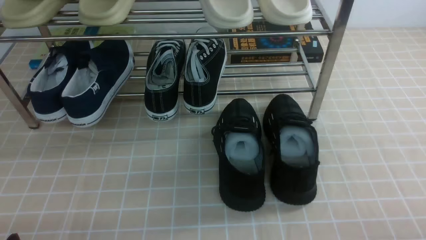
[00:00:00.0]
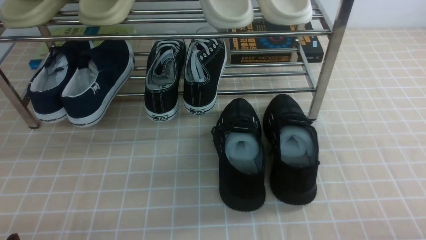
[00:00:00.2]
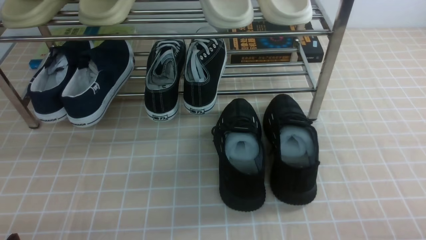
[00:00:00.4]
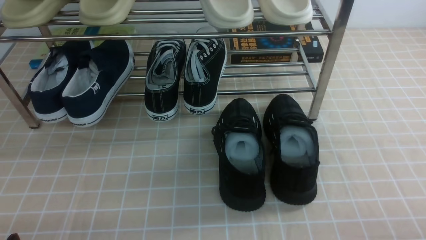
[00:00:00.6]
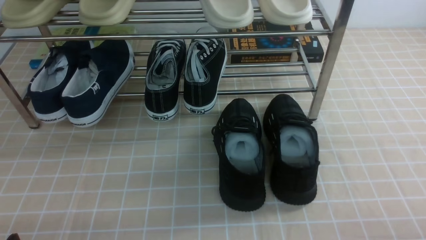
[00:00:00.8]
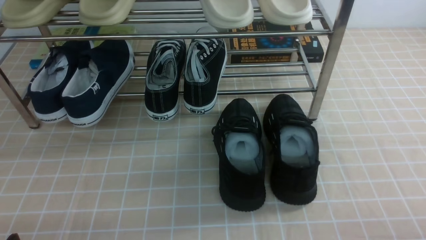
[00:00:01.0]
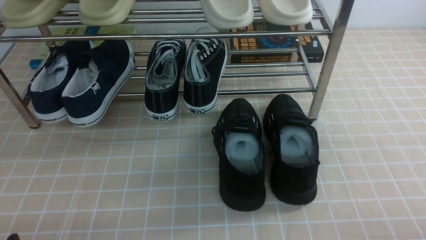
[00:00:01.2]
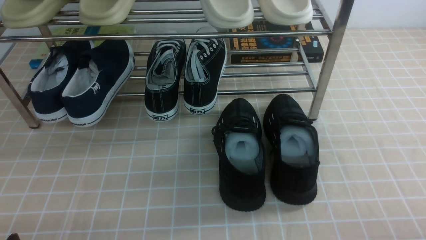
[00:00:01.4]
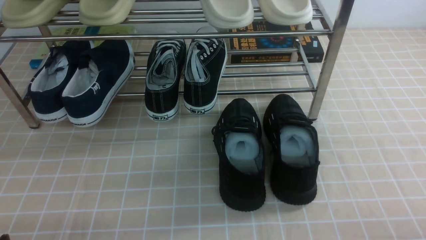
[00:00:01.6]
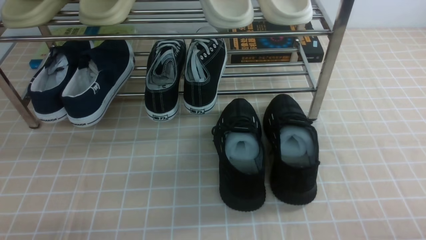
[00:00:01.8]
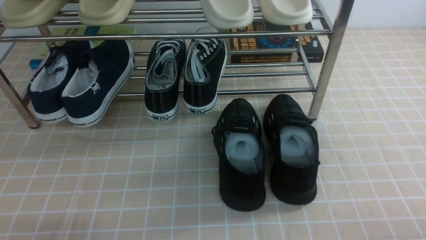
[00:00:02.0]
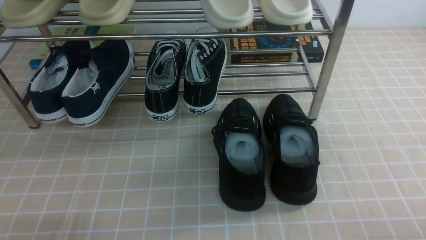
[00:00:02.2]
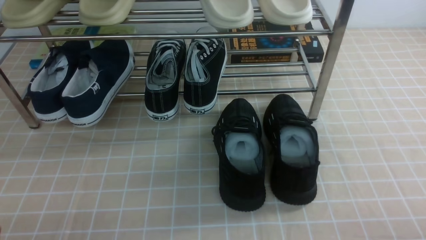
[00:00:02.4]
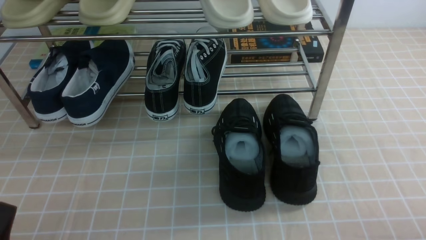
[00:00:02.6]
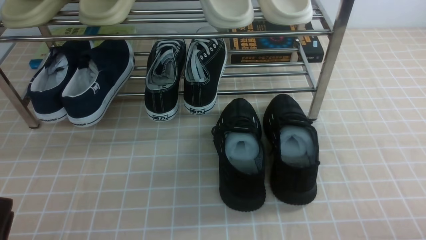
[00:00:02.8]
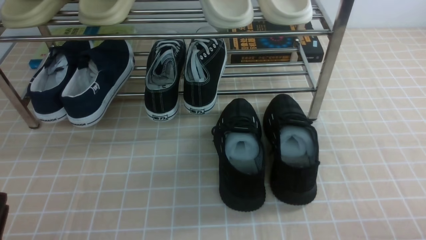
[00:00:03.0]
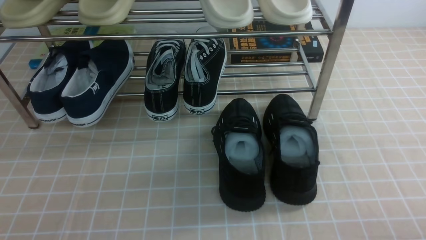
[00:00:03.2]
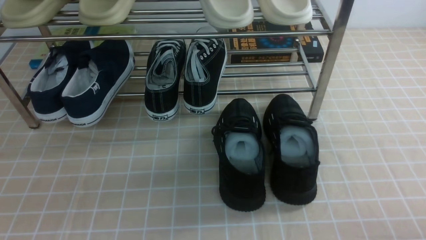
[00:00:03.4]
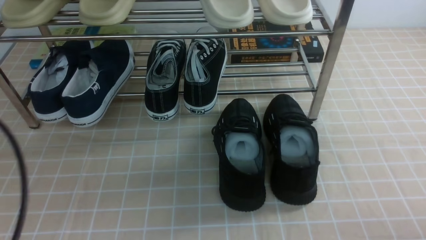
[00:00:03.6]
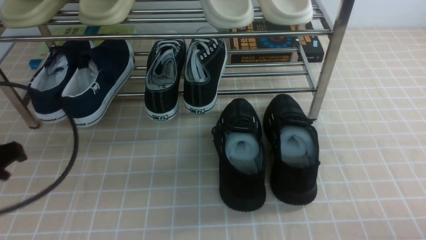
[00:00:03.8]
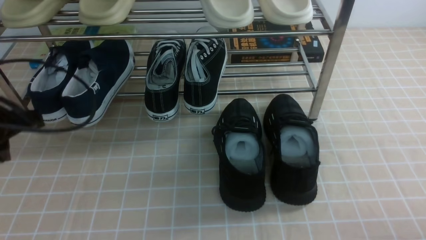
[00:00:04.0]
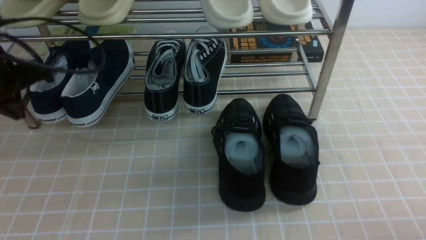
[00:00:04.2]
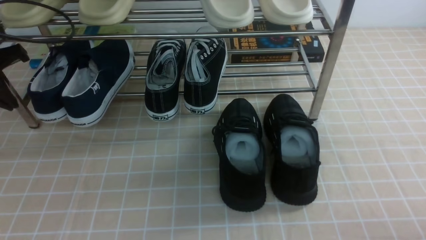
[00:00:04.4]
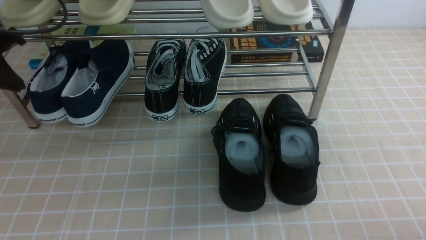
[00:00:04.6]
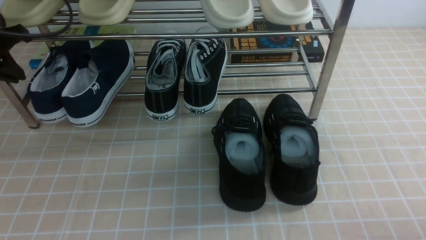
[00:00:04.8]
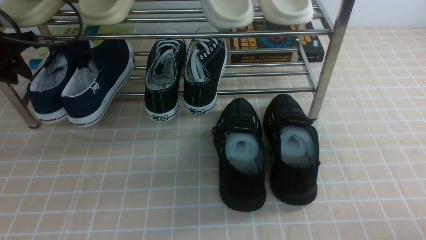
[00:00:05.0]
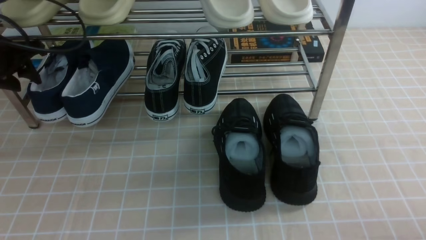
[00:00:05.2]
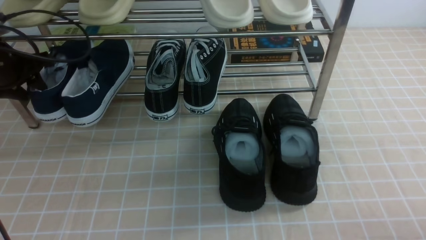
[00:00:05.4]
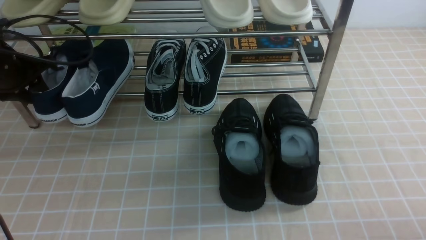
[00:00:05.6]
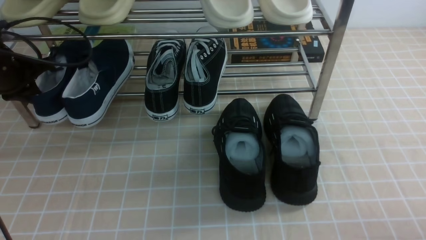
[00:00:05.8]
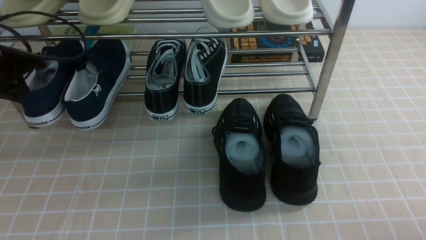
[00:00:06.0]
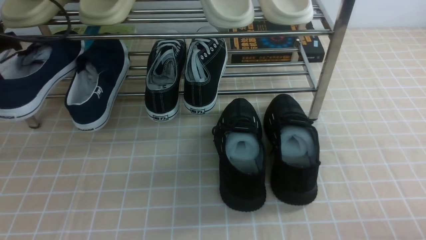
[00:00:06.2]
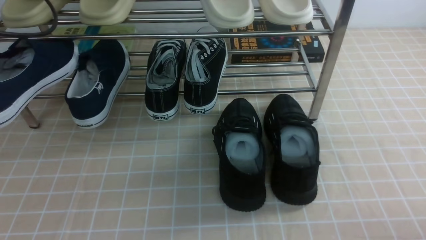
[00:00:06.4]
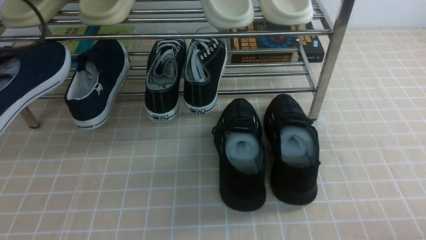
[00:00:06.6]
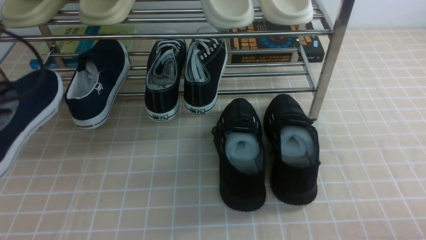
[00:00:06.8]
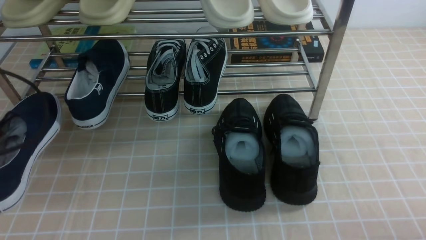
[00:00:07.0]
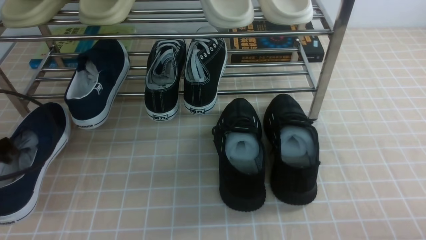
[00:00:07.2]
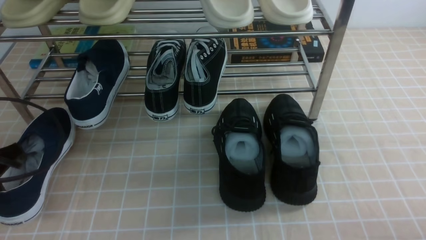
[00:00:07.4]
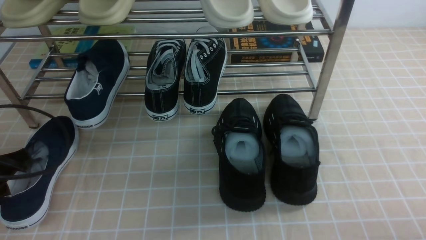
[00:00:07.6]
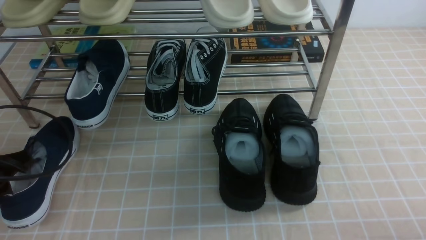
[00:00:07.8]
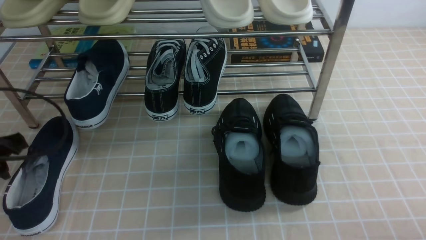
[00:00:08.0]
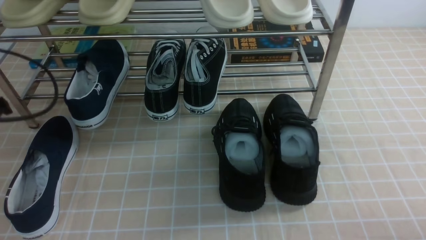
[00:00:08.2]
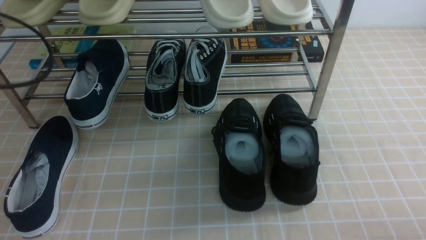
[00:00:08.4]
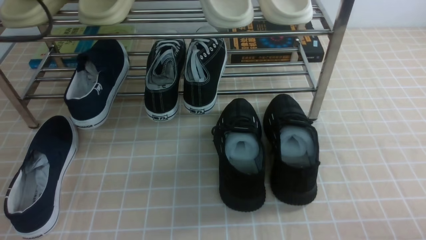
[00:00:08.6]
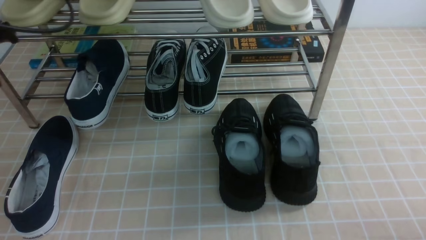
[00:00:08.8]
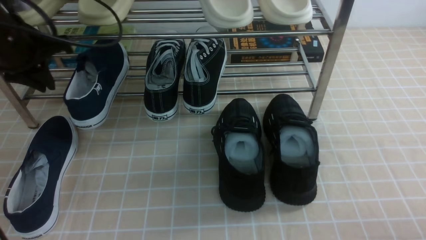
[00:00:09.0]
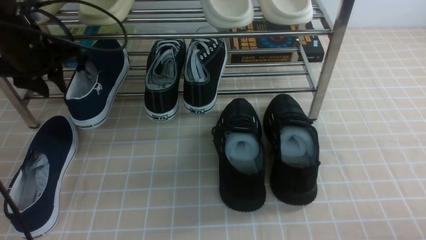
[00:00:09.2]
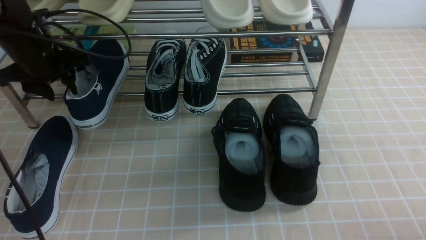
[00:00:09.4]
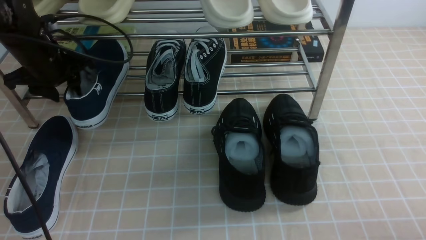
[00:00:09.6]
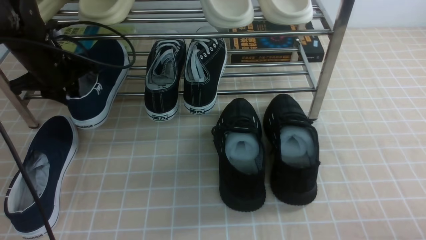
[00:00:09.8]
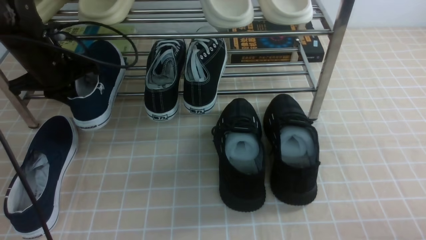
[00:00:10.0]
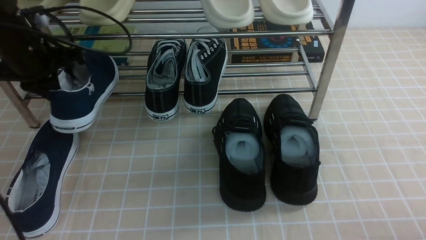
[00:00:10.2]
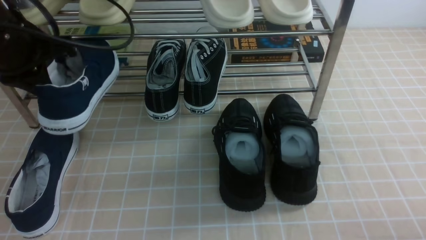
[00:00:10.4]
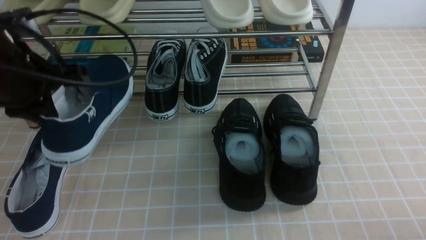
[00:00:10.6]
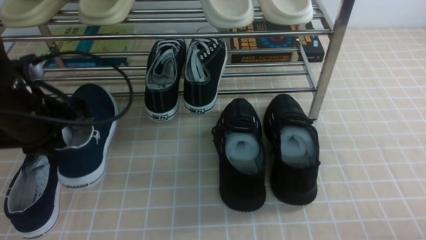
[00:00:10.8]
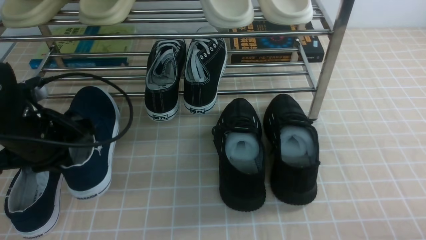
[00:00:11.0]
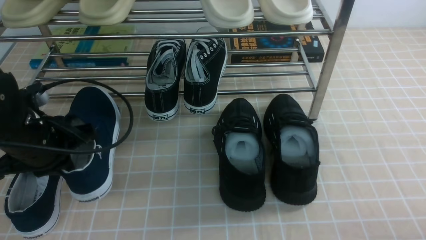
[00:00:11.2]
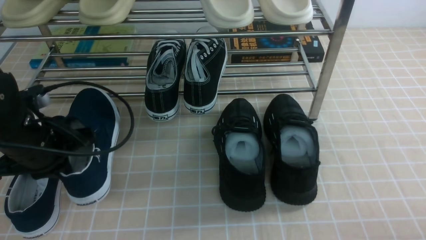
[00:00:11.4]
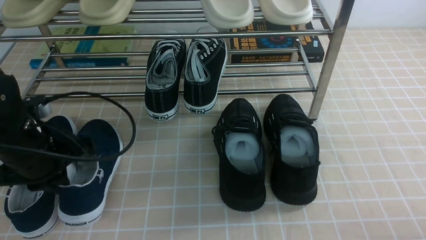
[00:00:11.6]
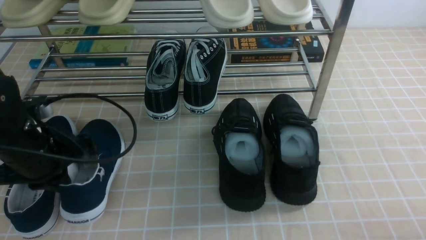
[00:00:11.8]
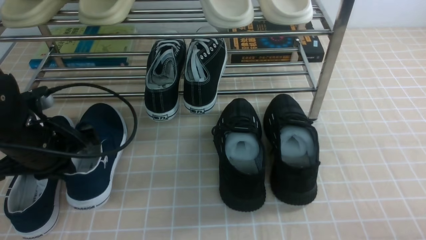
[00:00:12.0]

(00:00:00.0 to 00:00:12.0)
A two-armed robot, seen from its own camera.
Step, 00:00:00.0 - 00:00:05.6: use the left arm to clamp a shoe on the left side of the shoe rack.
Step, 00:00:05.8 - 00:00:08.0: Use your left arm to remove the clamped shoe from the shoe rack and put it down.
Step, 00:00:08.2 - 00:00:09.8: use the left arm to clamp a shoe on the left side of the shoe rack.
00:00:03.0 - 00:00:04.4: The left gripper goes approximately 30 cm forward and upward, and closes its fingers.
00:00:04.4 - 00:00:06.0: The left gripper opens, then closes once more.
00:00:06.0 - 00:00:07.6: The left gripper goes roughly 15 cm backward and downward.
00:00:07.6 - 00:00:09.0: The left gripper goes about 20 cm forward and upward.
00:00:09.0 - 00:00:10.4: The left gripper closes its fingers.
00:00:10.4 - 00:00:12.0: The left gripper heads downward and backward, covering about 10 cm.

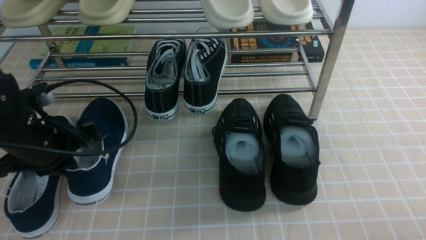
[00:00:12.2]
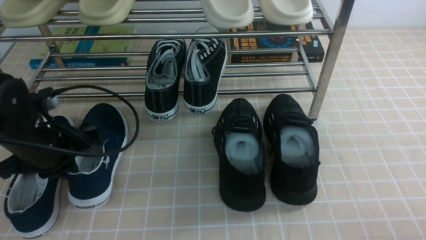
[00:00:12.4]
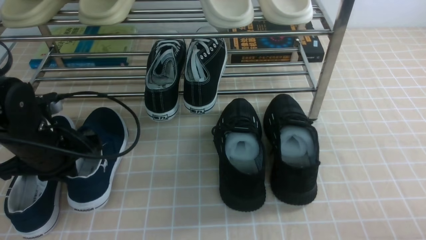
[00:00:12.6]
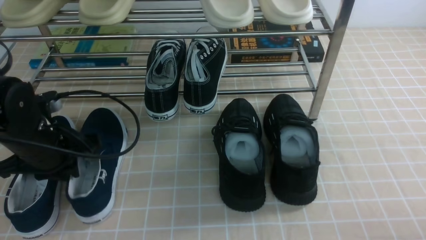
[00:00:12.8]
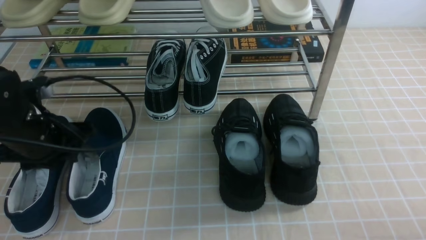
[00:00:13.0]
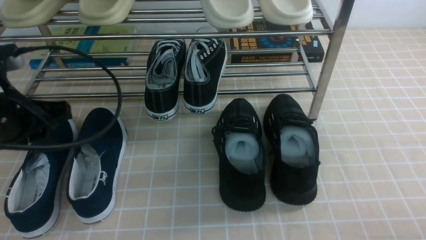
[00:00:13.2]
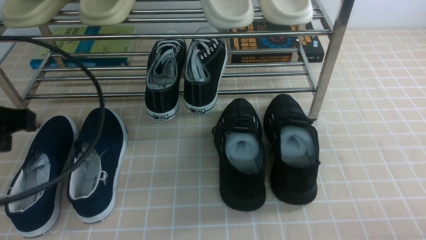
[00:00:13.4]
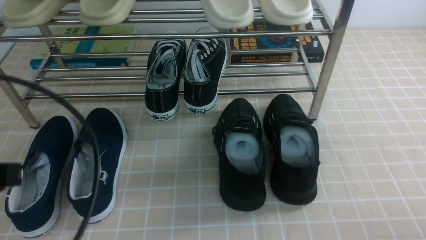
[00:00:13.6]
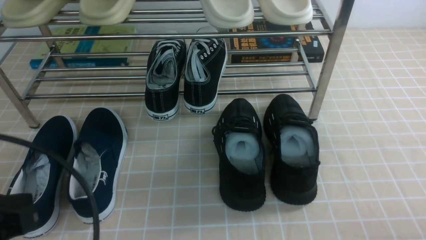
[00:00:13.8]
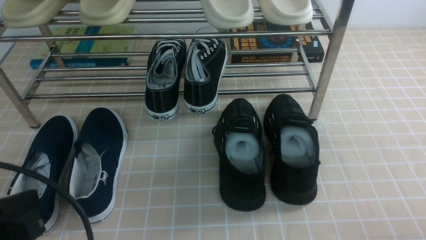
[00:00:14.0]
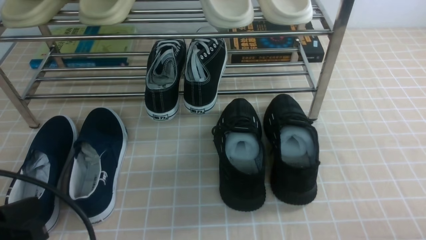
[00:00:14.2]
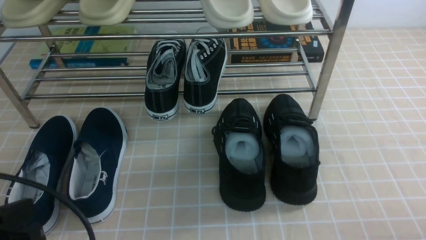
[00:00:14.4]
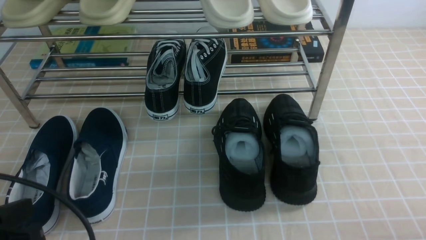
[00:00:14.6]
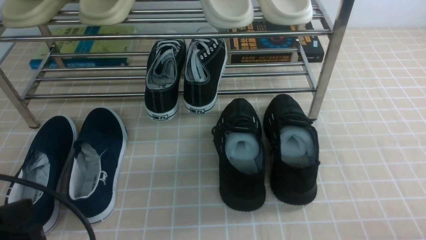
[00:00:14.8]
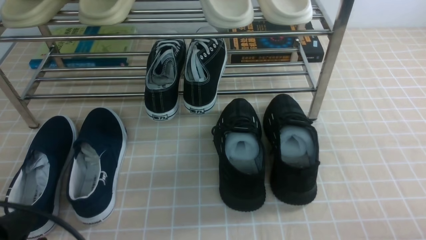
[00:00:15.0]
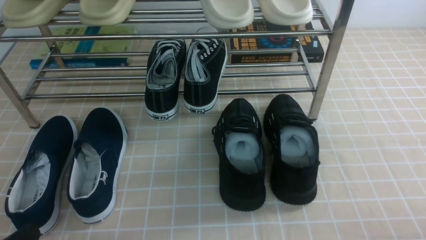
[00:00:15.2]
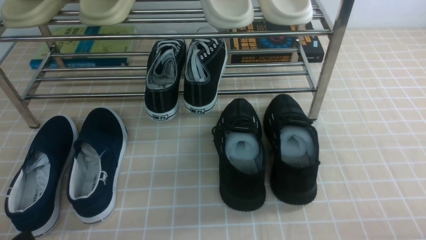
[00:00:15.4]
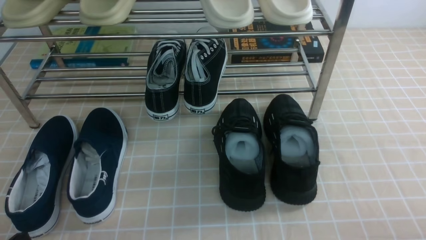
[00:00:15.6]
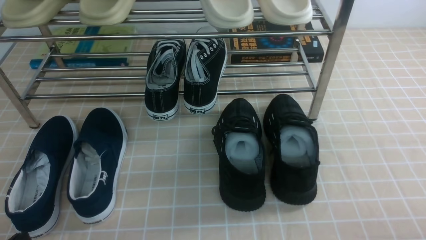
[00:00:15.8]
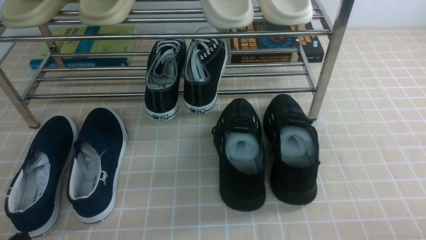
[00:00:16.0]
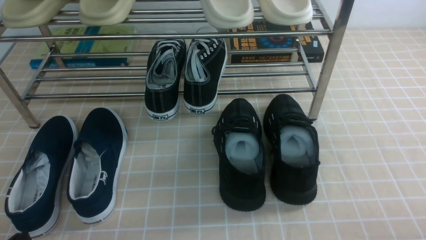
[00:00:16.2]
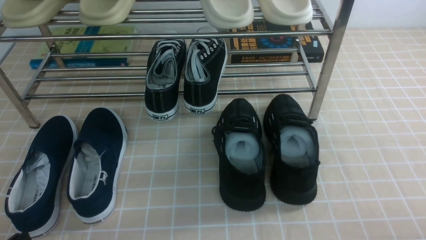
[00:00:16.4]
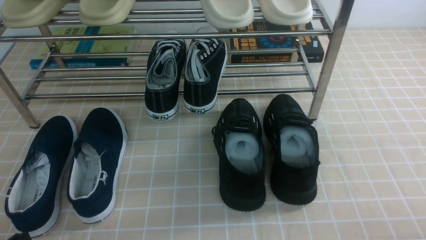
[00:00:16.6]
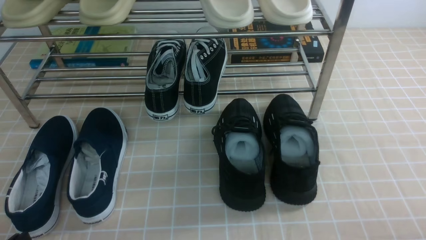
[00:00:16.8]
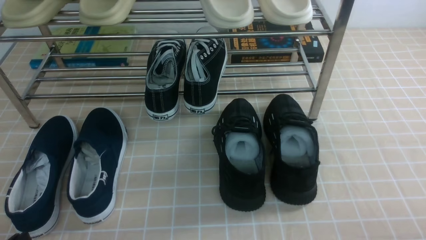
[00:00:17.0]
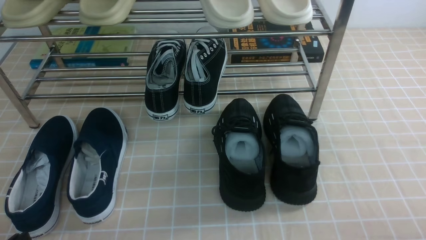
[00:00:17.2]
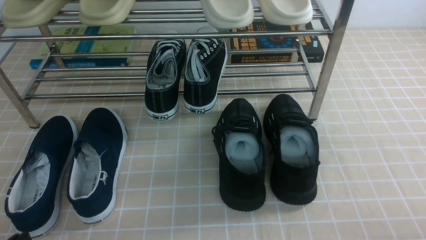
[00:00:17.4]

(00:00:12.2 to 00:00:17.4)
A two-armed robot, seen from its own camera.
00:00:12.2 - 00:00:14.0: The left gripper travels backward by roughly 20 cm, and opens, then closes once more.
00:00:14.0 - 00:00:15.6: The left gripper heads downward, covering roughly 10 cm.
00:00:15.6 - 00:00:17.4: Neither gripper changes place.
